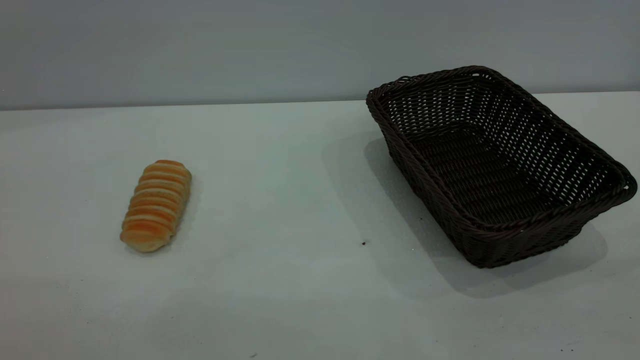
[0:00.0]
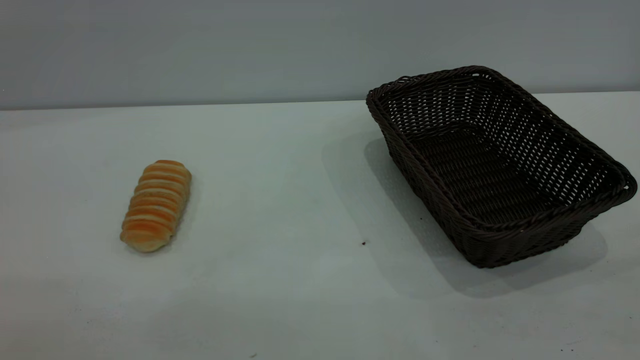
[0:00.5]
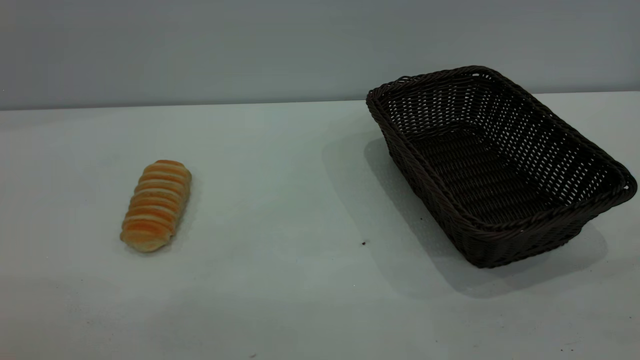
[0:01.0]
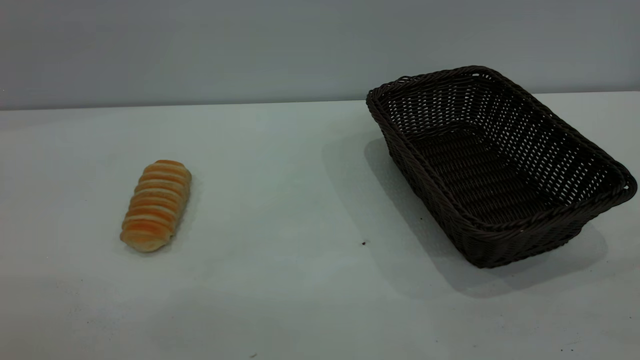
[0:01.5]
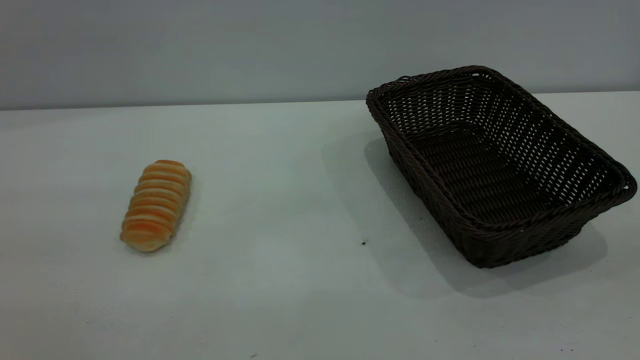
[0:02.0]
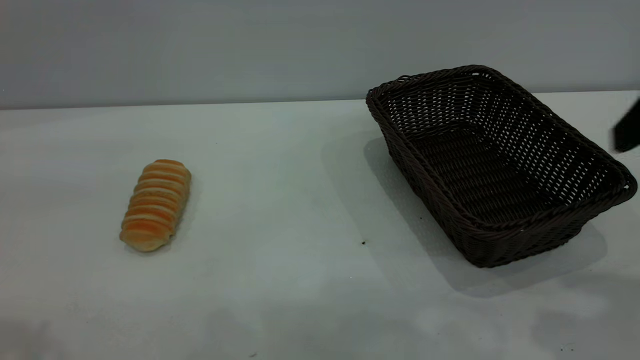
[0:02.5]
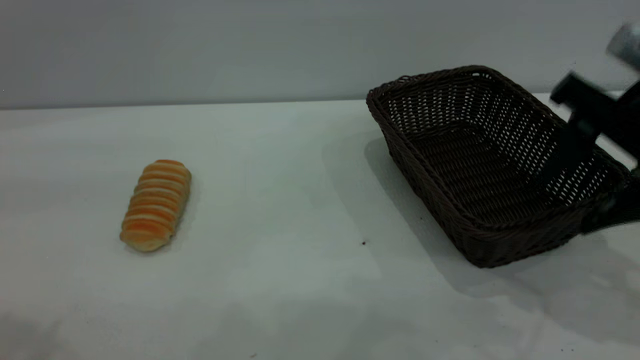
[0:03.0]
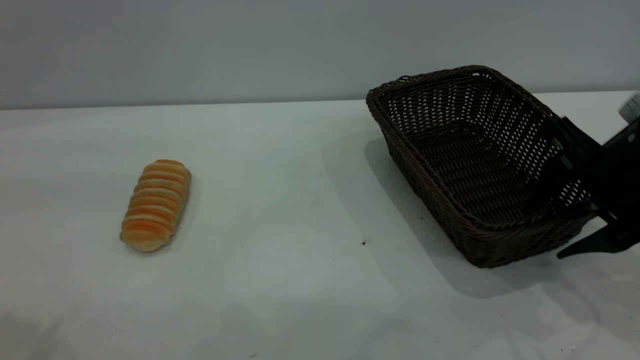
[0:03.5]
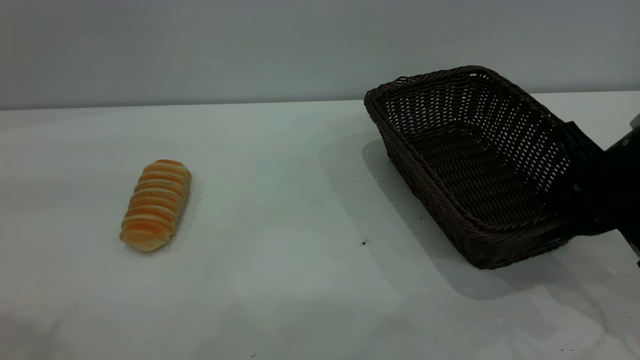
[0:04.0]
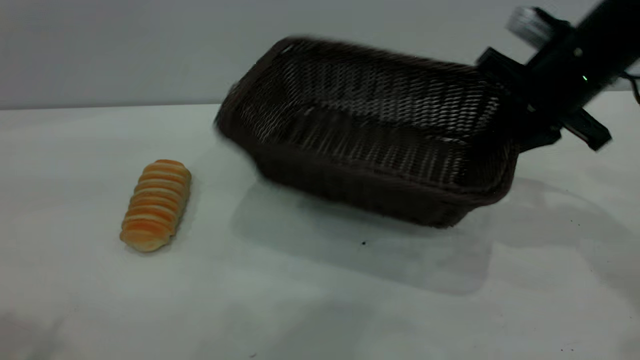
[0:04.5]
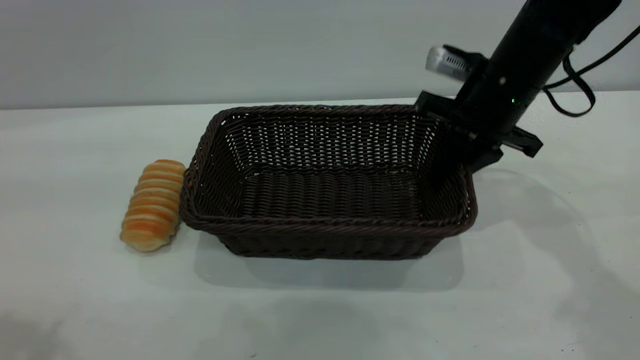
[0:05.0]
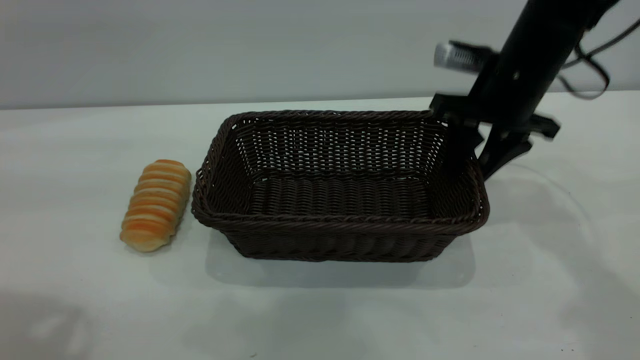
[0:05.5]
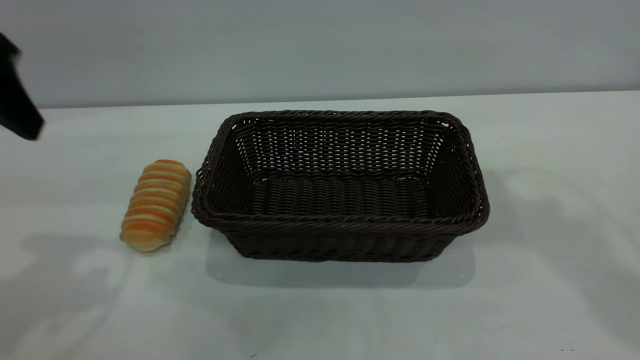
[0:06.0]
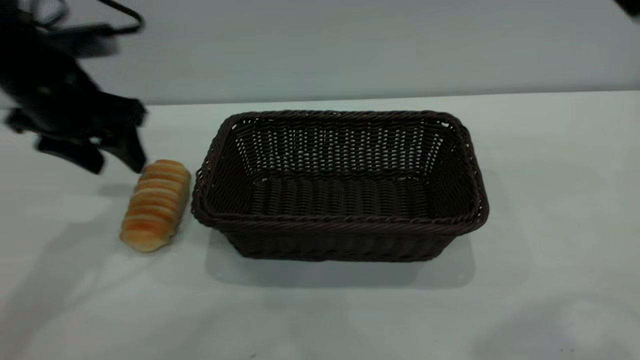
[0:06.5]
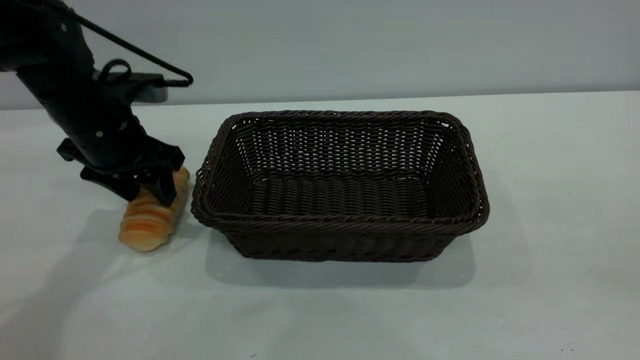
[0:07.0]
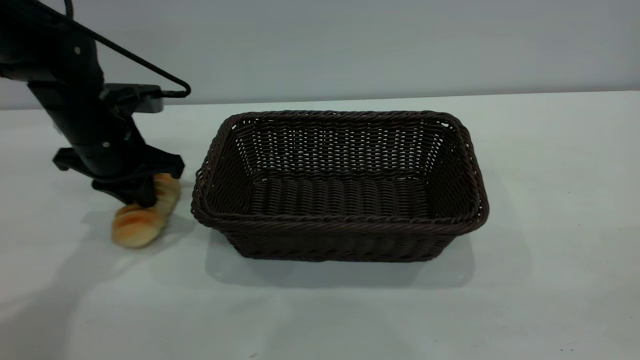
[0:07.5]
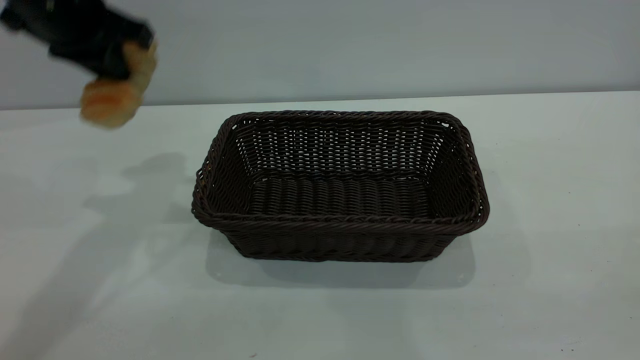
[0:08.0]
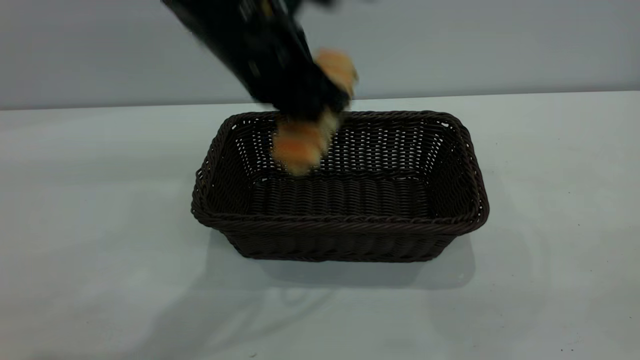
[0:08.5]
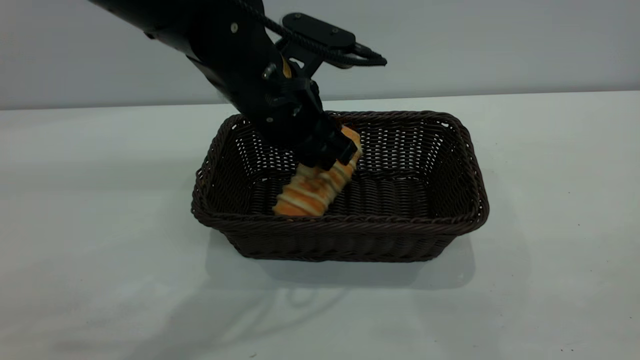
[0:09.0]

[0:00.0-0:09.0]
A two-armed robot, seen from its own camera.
Task of the whole recording: One hand grasps the black basket and places it in the middle of the table, while the other hand picks up the long bread and puts it into the black basket.
Step, 0:00.0 to 0:05.5: Move the basket to the center of view.
0:02.0 to 0:04.5: The right gripper heads forward and downward, covering roughly 35 cm, and closes; the left gripper travels forward by about 10 cm.
0:04.5 to 0:07.0: The left gripper travels downward and forward by about 35 cm. The right gripper is displaced backward and upward by some 35 cm, and opens.
0:07.0 to 0:09.0: The left gripper shifts some 20 cm to the right, and closes, then reopens; the right gripper goes about 10 cm backward.
